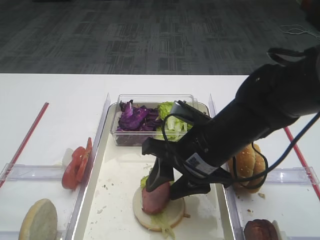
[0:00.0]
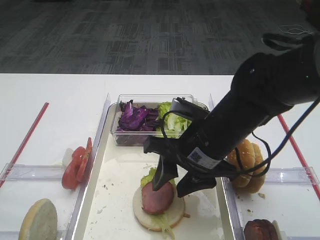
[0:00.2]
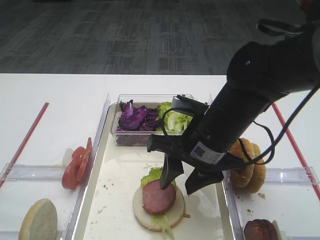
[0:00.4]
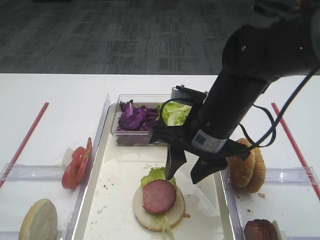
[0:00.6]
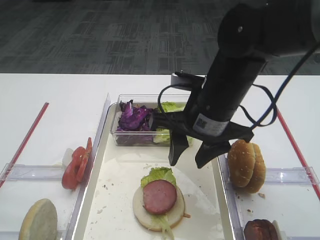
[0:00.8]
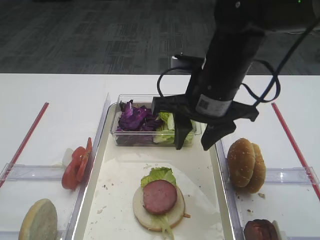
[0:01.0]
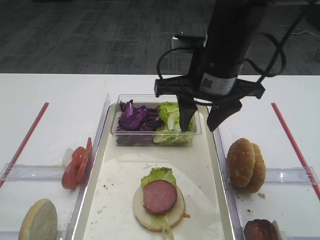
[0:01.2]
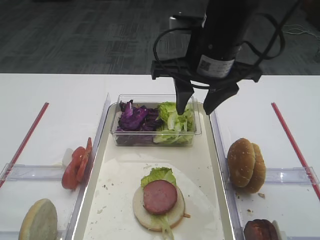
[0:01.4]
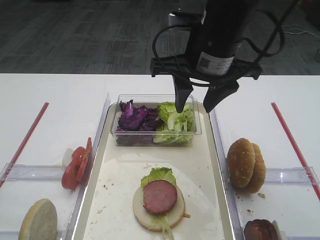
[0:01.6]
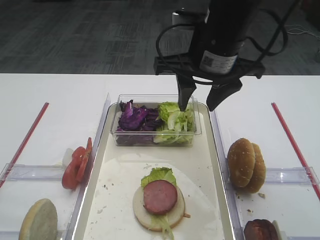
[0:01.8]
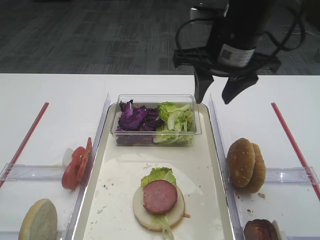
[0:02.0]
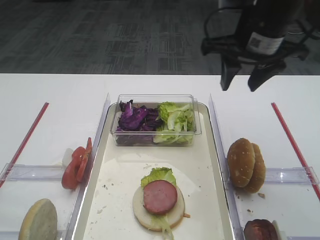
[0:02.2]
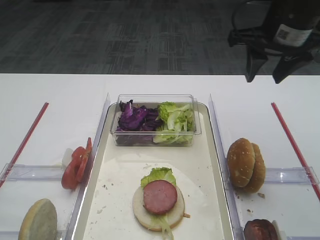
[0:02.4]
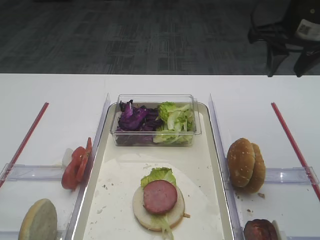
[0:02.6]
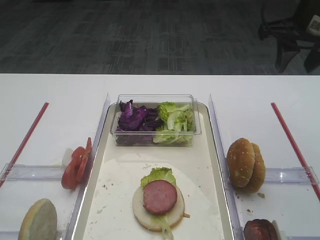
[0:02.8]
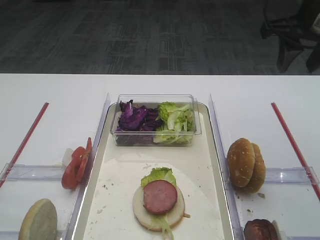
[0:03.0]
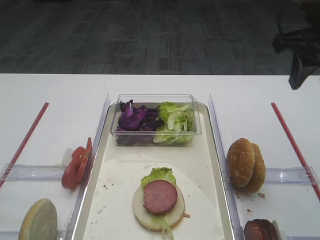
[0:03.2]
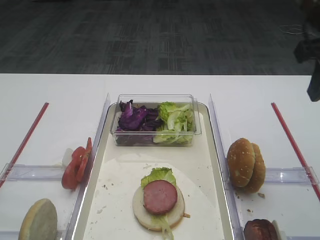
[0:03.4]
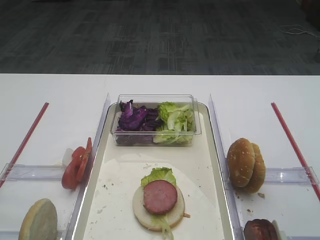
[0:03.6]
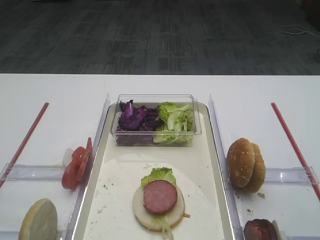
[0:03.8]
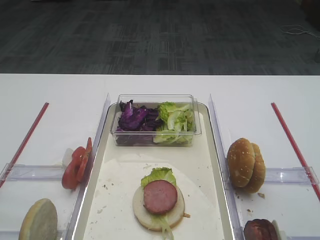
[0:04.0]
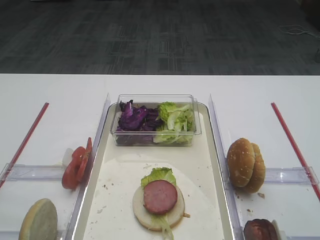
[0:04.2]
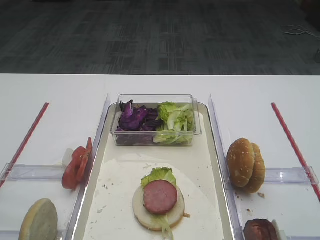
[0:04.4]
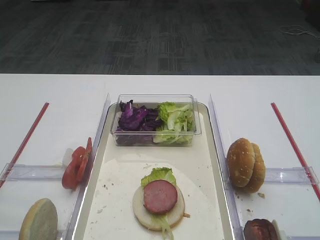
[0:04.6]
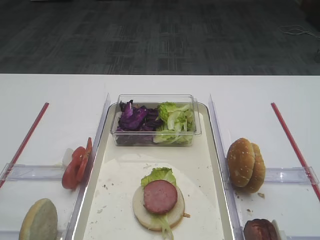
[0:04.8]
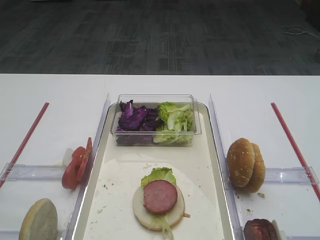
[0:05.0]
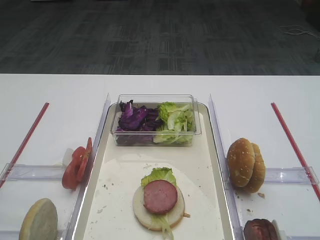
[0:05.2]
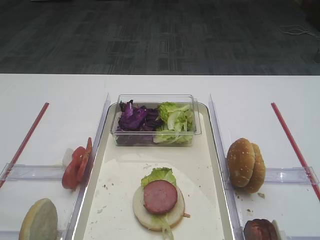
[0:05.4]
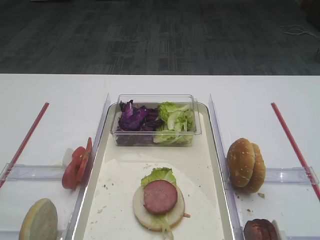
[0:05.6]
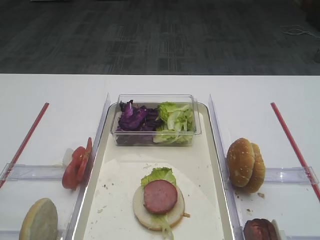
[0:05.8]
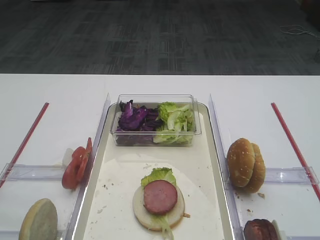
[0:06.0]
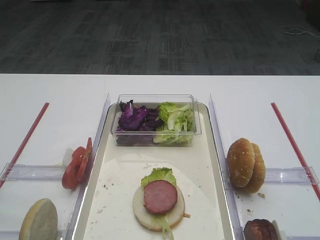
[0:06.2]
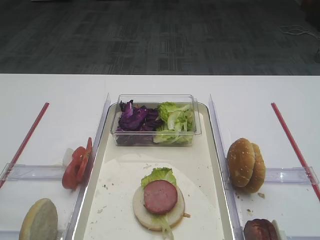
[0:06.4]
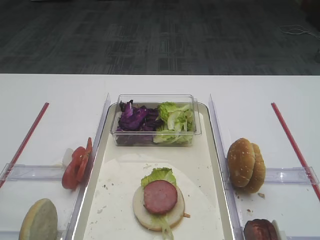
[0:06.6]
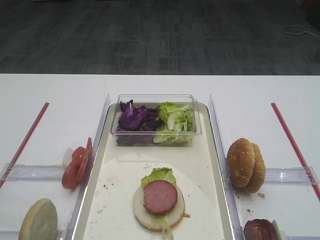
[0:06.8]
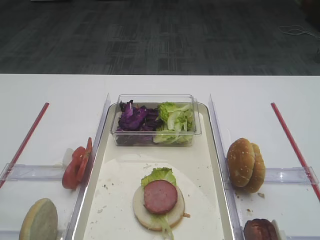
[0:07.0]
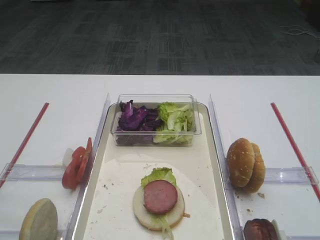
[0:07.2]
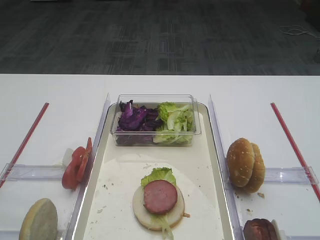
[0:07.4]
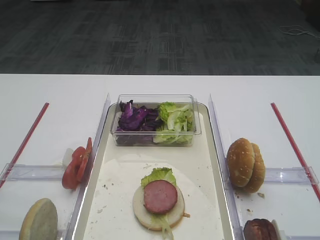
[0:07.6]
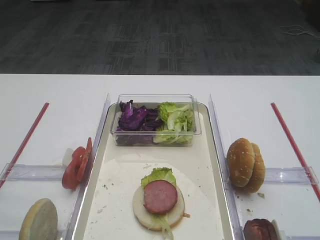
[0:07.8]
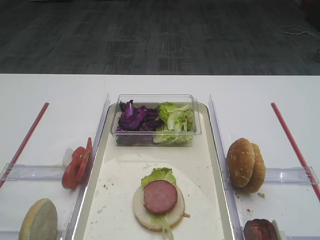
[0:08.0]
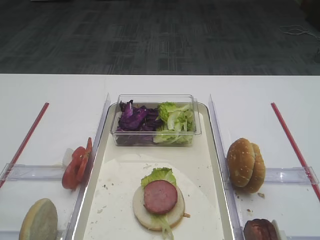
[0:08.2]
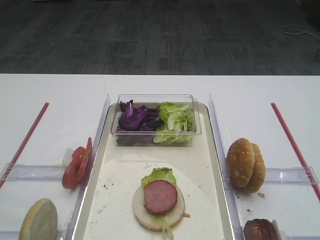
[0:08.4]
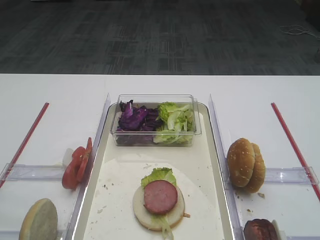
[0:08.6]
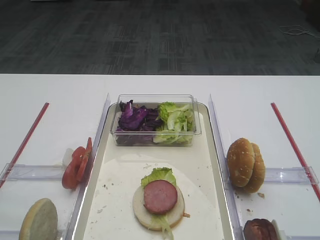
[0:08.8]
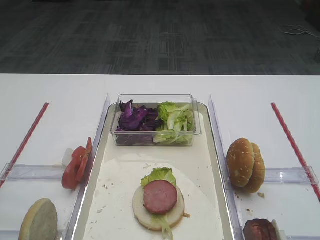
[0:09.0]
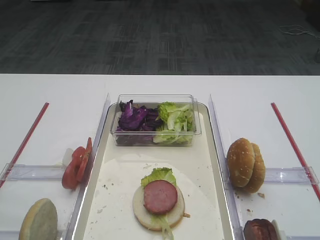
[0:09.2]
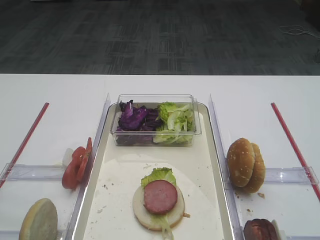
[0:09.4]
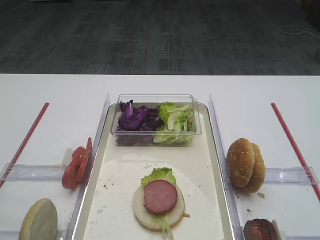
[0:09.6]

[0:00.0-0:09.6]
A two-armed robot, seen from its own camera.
0:00.0 to 0:01.6: The right gripper shifts approximately 15 cm upward and forward.
0:01.6 to 0:03.2: The right gripper is displaced to the right by about 15 cm.
0:03.2 to 0:04.8: The right gripper travels backward by roughly 30 cm.
0:08.0 to 0:09.6: Neither gripper changes place.
